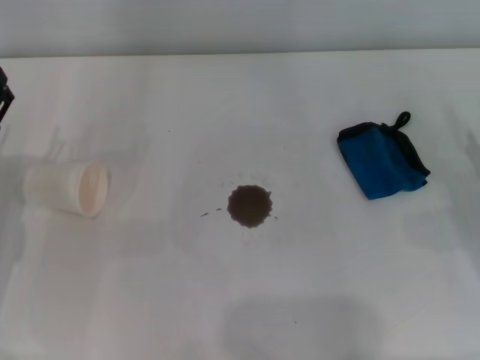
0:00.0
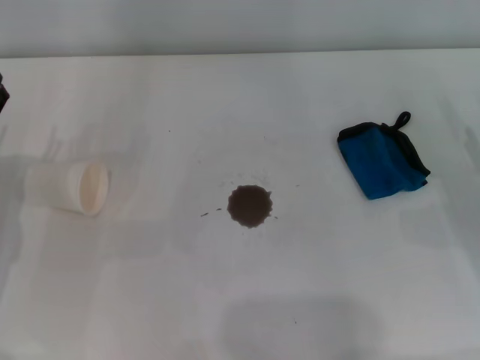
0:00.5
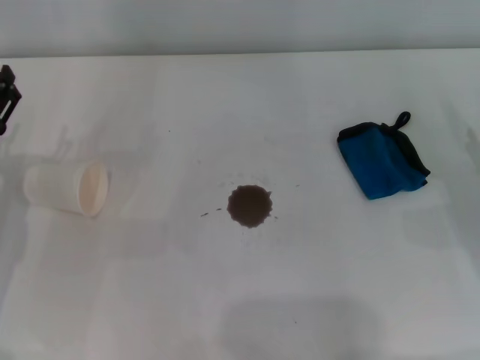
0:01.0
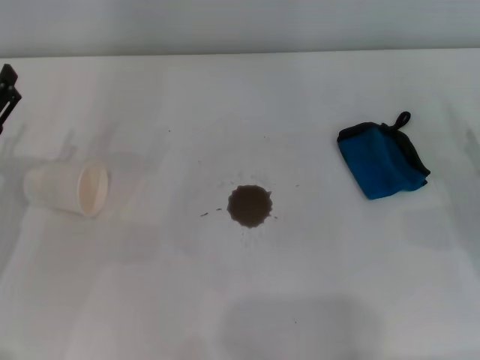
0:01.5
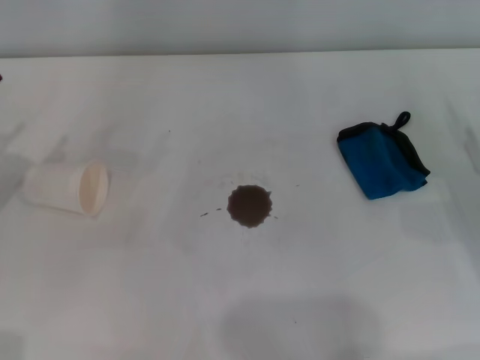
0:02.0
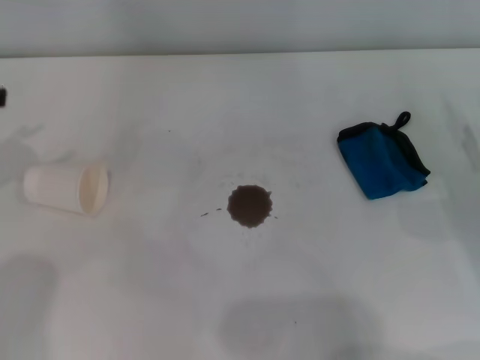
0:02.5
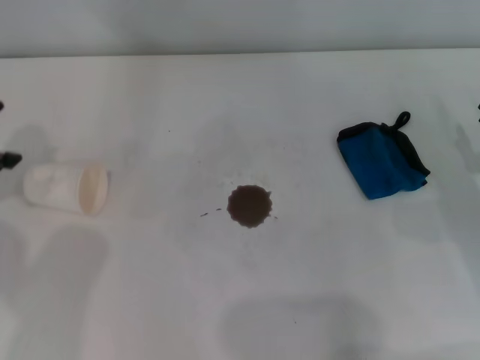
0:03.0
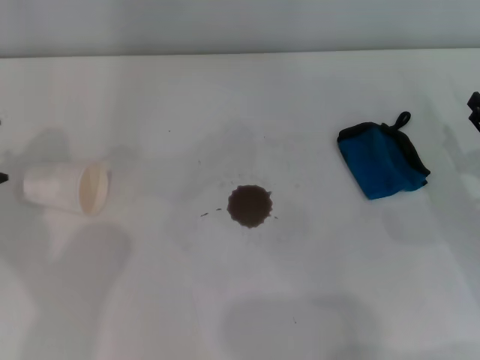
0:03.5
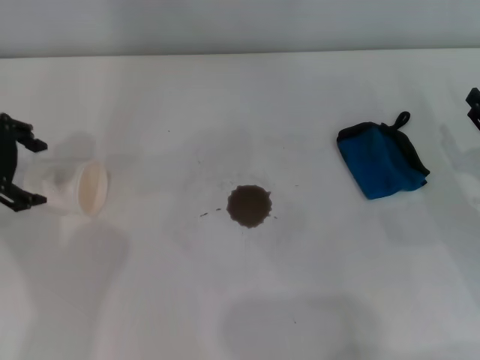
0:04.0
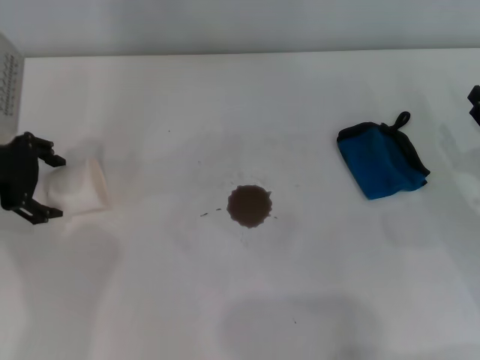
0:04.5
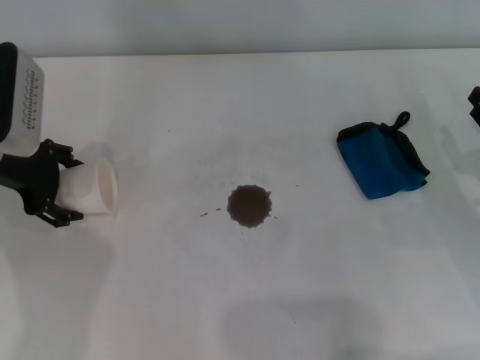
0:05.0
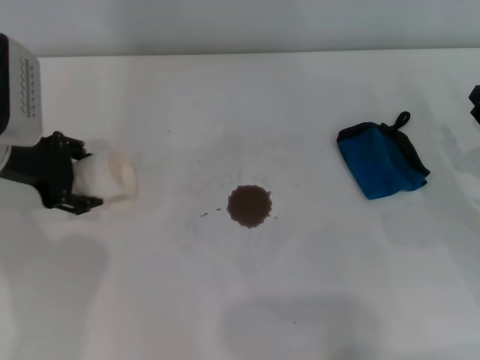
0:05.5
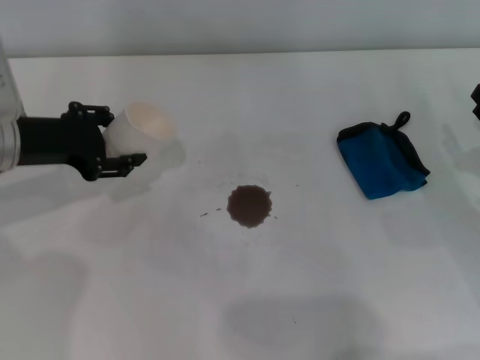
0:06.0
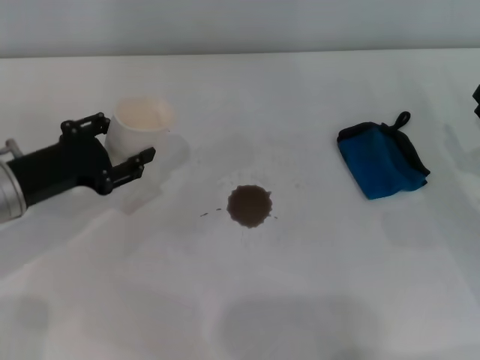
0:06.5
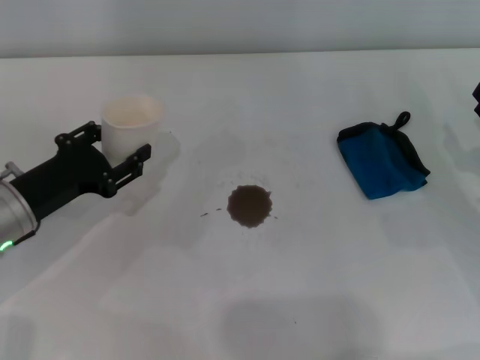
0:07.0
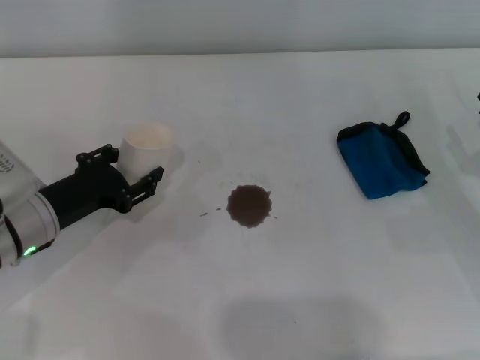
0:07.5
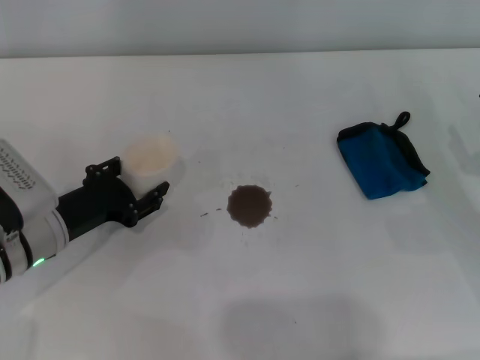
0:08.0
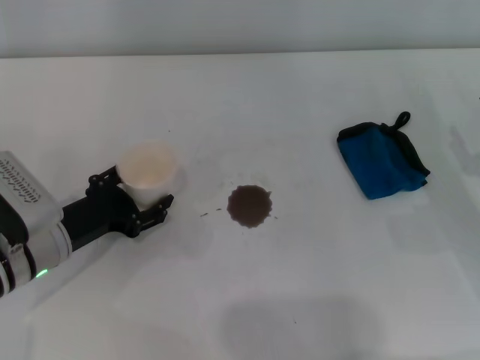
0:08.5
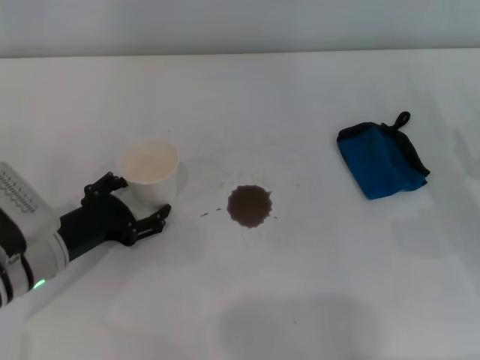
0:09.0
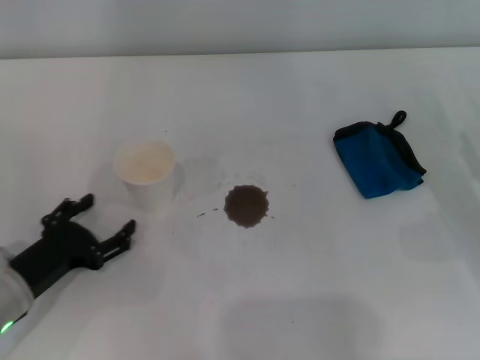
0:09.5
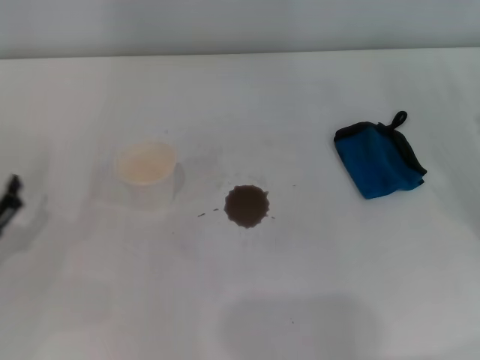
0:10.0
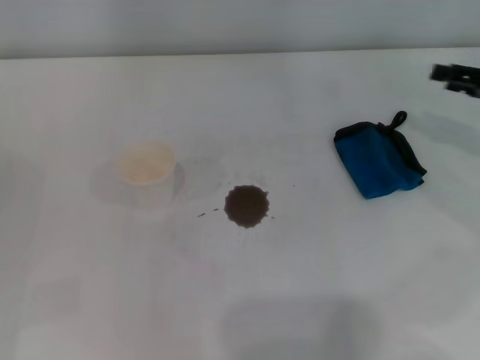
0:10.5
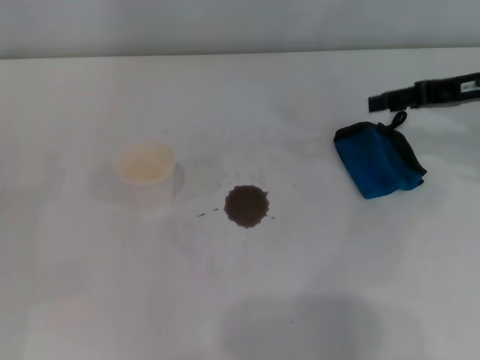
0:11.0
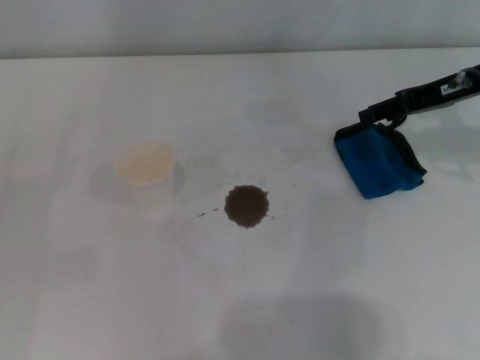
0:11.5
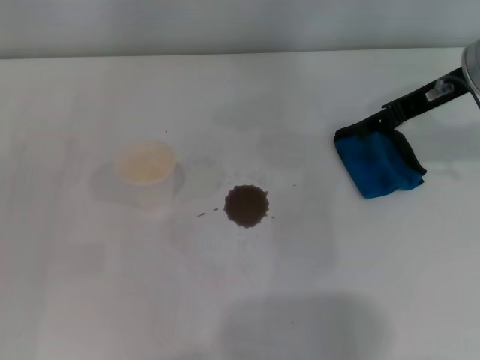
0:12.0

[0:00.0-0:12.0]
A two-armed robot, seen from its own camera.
Step, 0:00.0 to 0:05.0: Grasp the paper cup with the left gripper.
Step, 0:05.5 to 0:08.5: Stand the paper cup upright with the left gripper.
0:02.0 to 0:04.0: The left gripper is displaced forward, upward and to the right by about 15 cm.
0:04.0 to 0:06.0: The left gripper heads downward, covering approximately 5 cm, and closes its fingers.
0:06.0 to 0:08.0: The left gripper goes some 10 cm downward and backward.
0:08.0 to 0:10.0: The right gripper changes place by roughly 5 cm. Meanwhile the left gripper travels to the left and backward by roughly 10 cm, and opens.
0:10.0 to 0:12.0: The right gripper goes about 20 cm to the left, forward and upward.

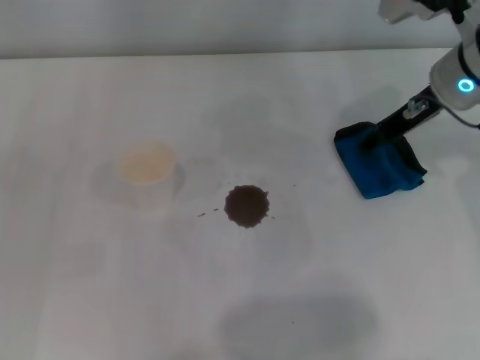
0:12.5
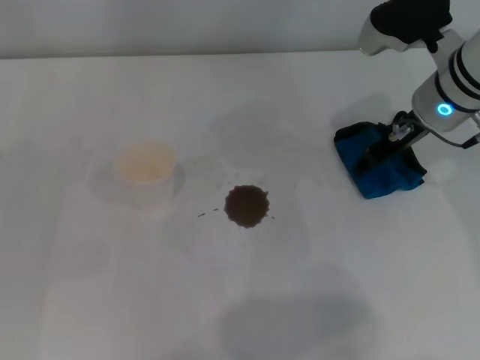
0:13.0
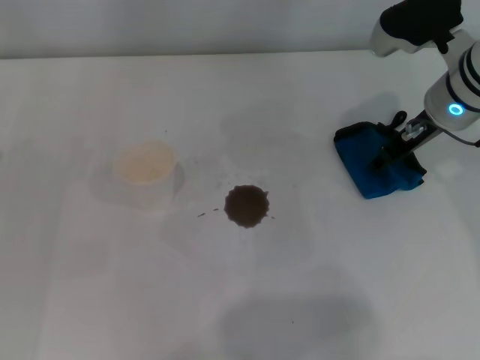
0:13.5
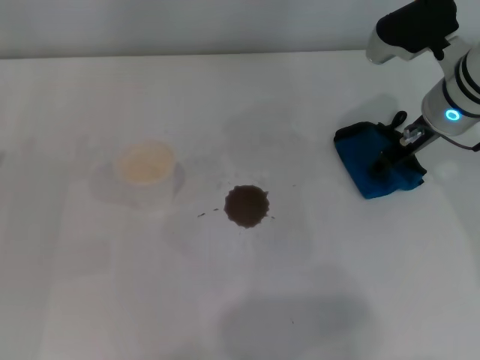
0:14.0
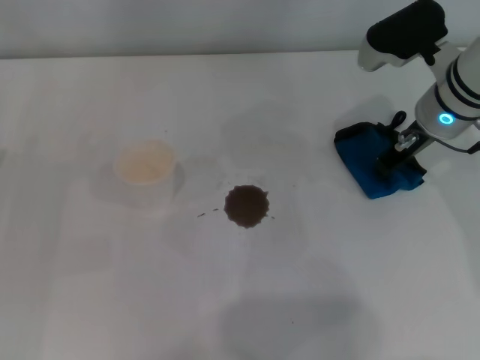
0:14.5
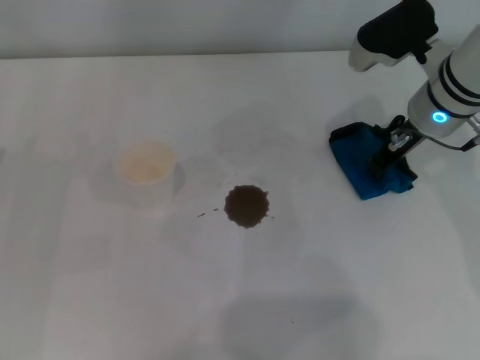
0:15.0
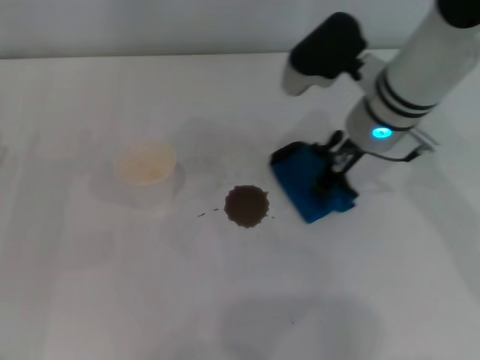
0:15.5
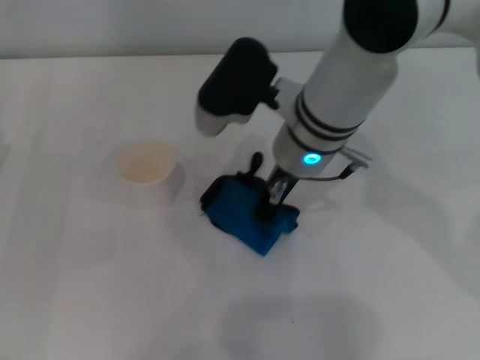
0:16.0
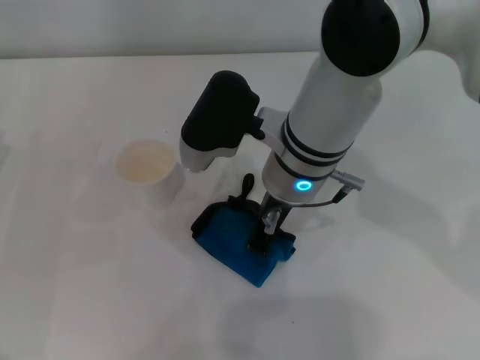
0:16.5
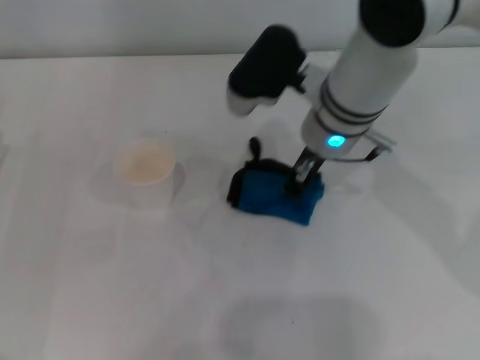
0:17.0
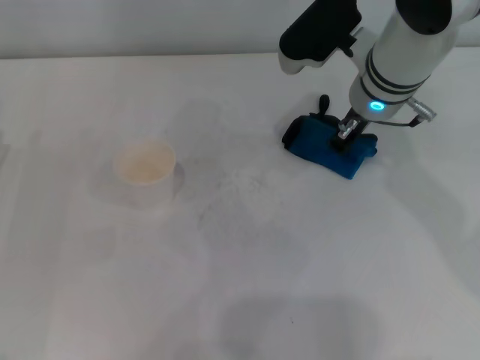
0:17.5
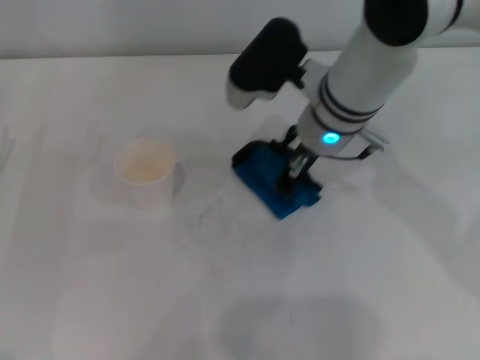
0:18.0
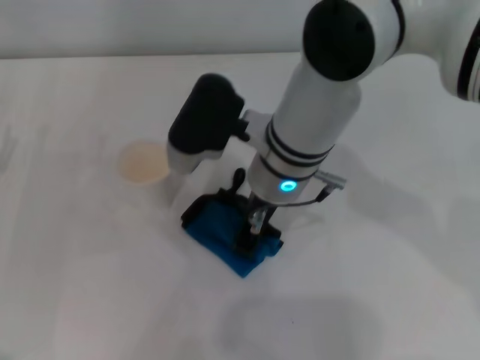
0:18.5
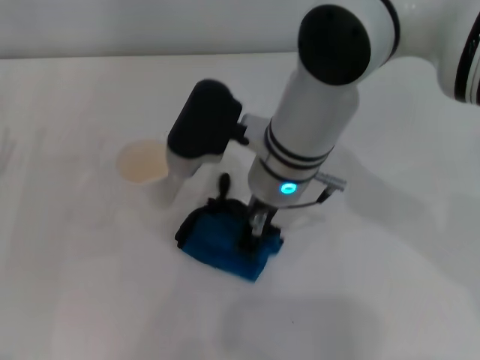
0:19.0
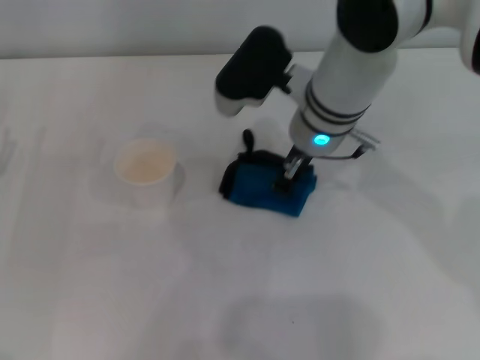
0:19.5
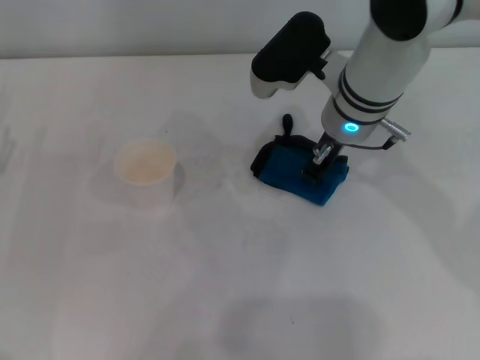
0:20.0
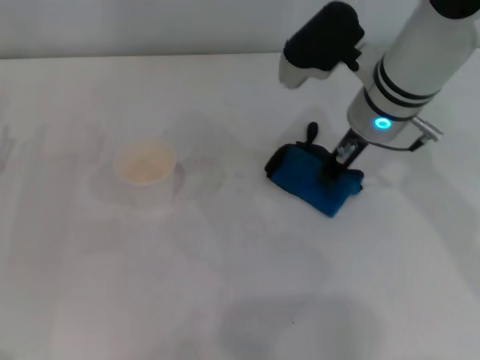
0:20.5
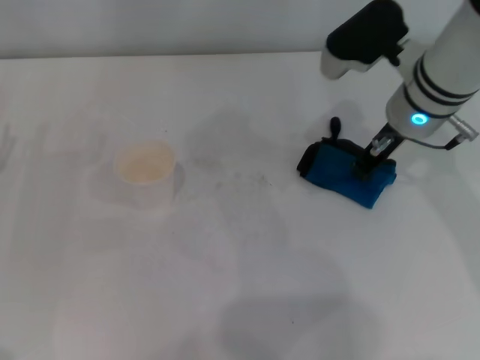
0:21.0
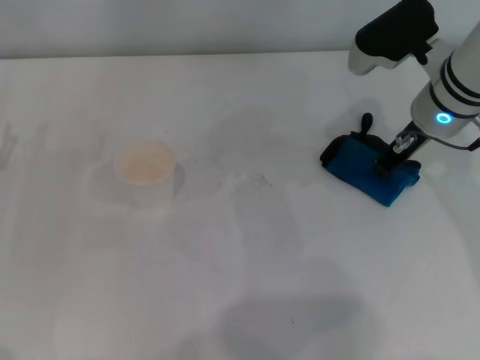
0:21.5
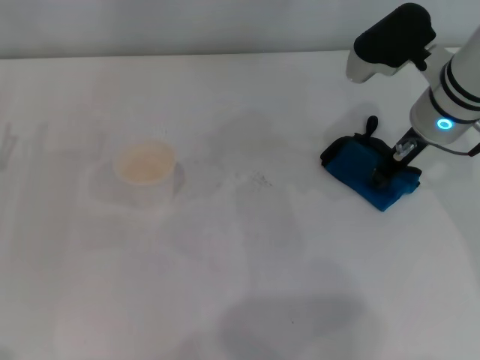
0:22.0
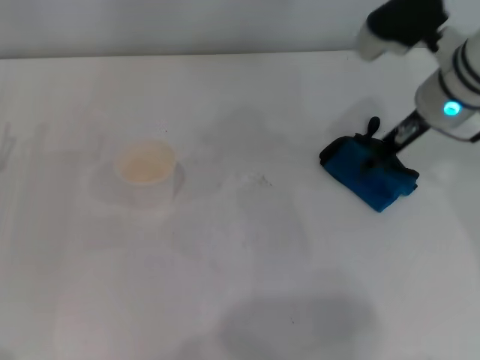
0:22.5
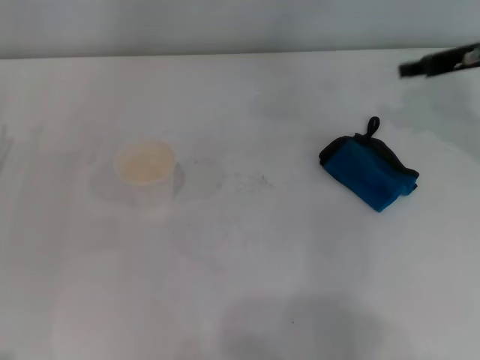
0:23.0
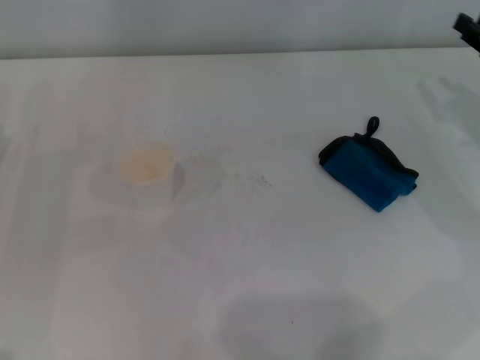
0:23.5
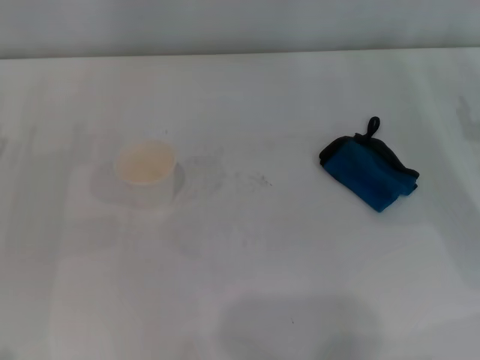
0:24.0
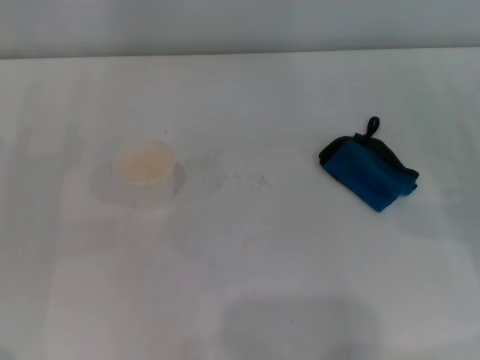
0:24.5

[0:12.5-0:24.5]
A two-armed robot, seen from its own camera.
Step, 0:12.5 to 0:14.5: Grasp the rag with the right gripper.
Step, 0:15.0 to 0:21.0: Wipe the stains off the table with the right gripper.
Step, 0:21.5 to 0:22.0: Place the rag on the table with the right gripper.
0:12.5 to 0:14.5: The right gripper closes its fingers.
0:14.5 to 0:16.5: The right gripper heads to the left, covering approximately 15 cm.
0:16.5 to 0:18.5: The right gripper goes to the right and returns, some 10 cm each way.
0:18.5 to 0:20.5: The right gripper shifts some 10 cm to the right.
0:20.5 to 0:22.5: The right gripper shifts some 5 cm to the right, and opens up.
0:22.5 to 0:24.5: The right gripper moves to the right, backward and downward, some 25 cm.
